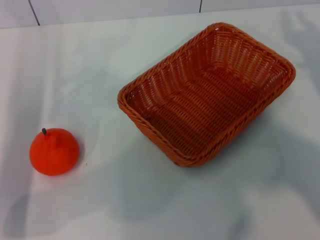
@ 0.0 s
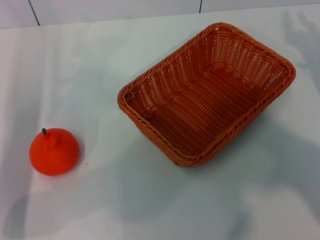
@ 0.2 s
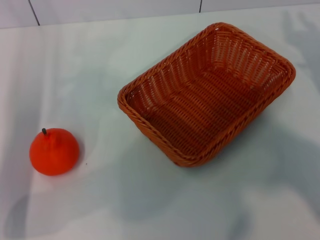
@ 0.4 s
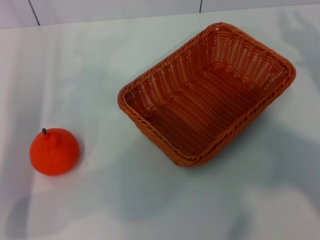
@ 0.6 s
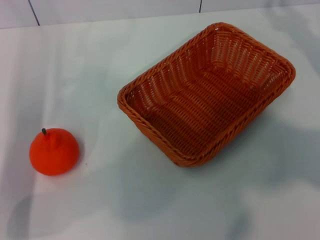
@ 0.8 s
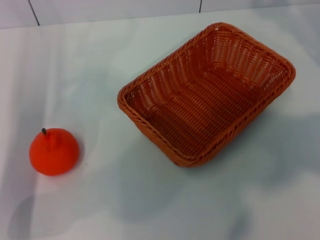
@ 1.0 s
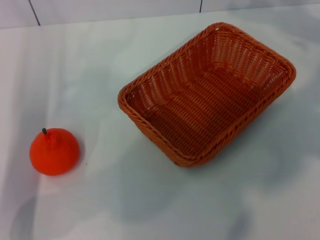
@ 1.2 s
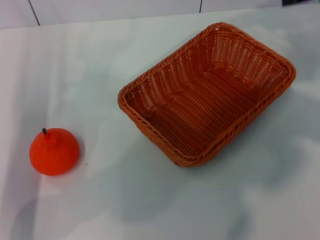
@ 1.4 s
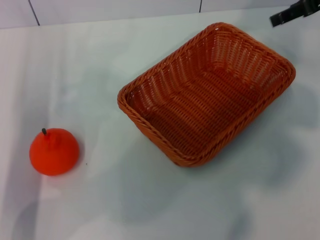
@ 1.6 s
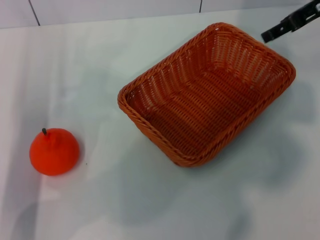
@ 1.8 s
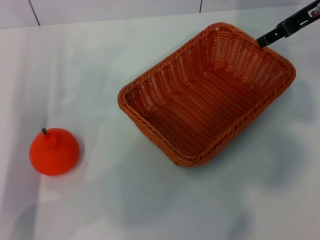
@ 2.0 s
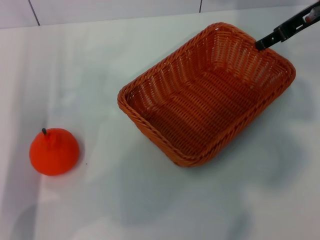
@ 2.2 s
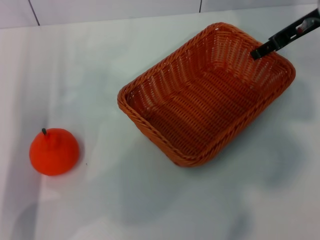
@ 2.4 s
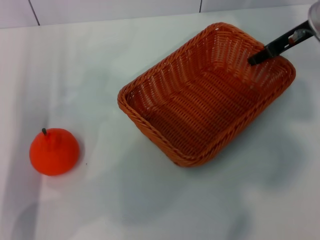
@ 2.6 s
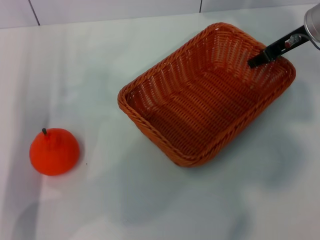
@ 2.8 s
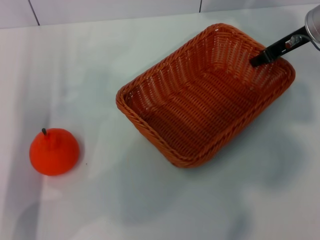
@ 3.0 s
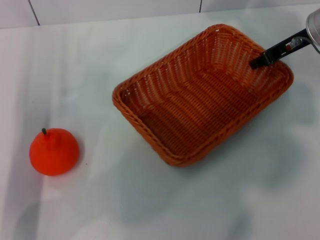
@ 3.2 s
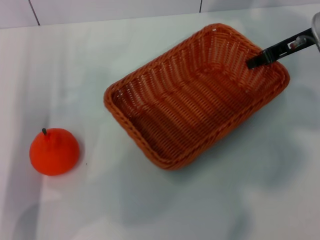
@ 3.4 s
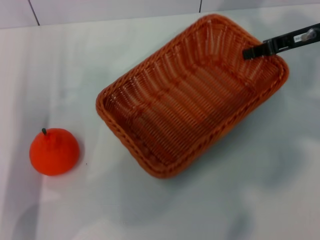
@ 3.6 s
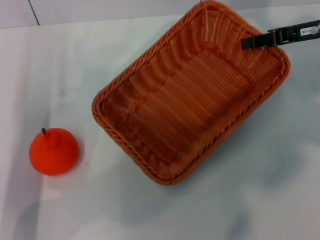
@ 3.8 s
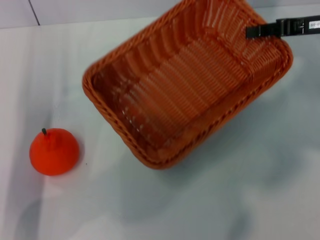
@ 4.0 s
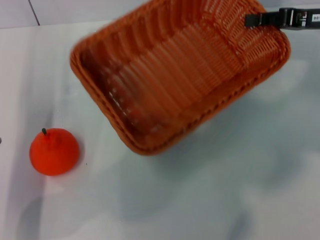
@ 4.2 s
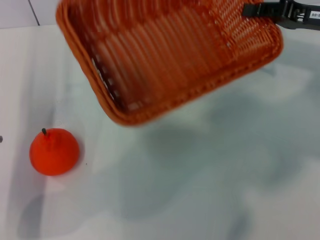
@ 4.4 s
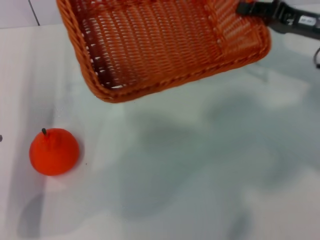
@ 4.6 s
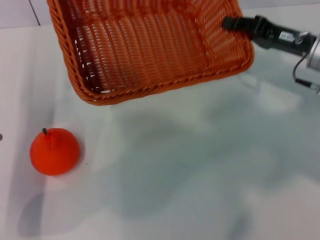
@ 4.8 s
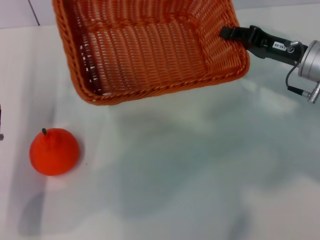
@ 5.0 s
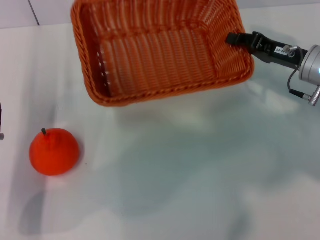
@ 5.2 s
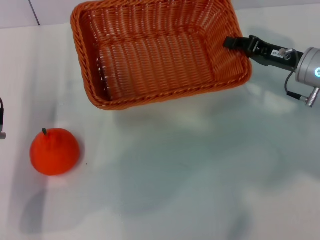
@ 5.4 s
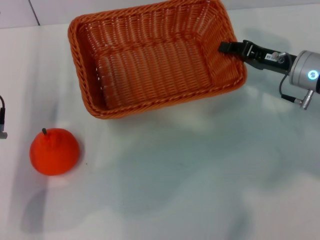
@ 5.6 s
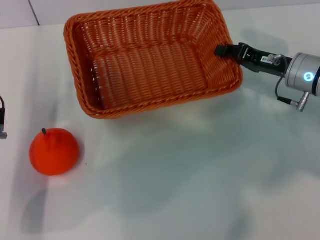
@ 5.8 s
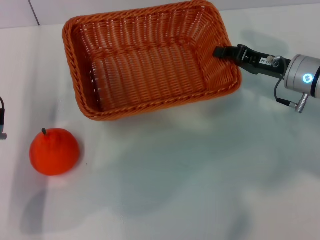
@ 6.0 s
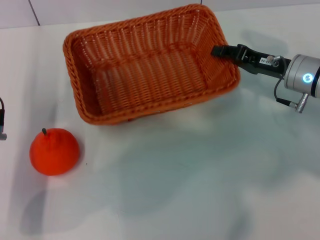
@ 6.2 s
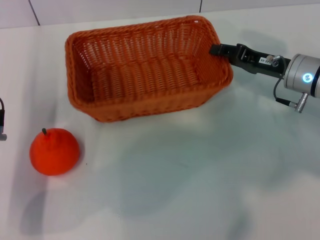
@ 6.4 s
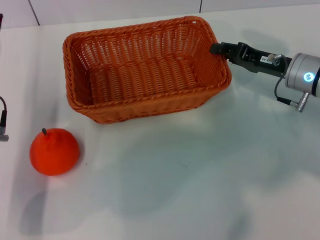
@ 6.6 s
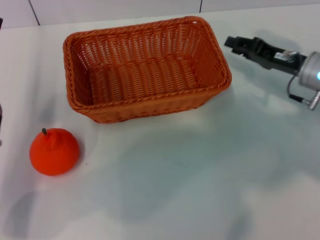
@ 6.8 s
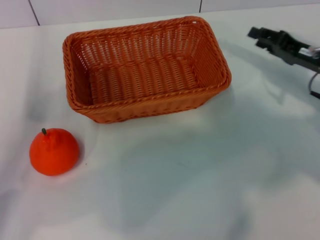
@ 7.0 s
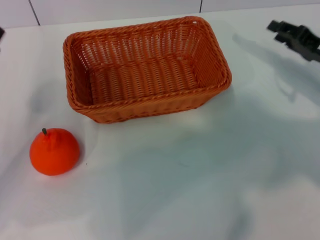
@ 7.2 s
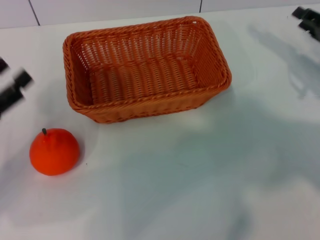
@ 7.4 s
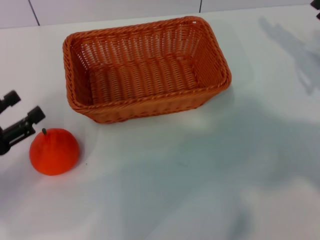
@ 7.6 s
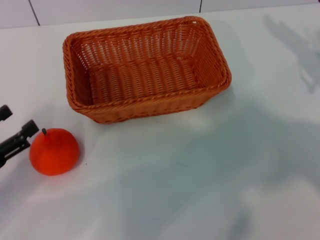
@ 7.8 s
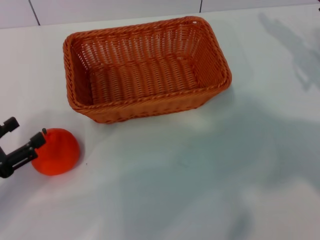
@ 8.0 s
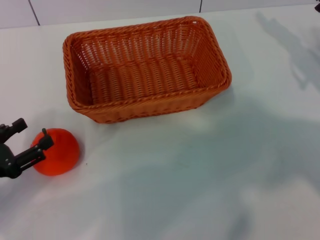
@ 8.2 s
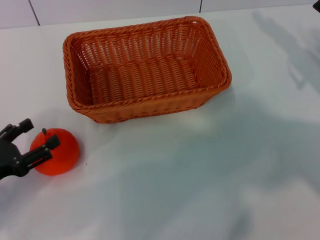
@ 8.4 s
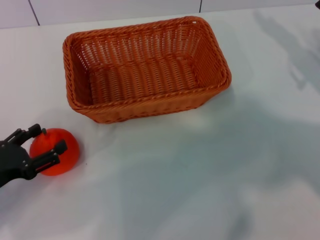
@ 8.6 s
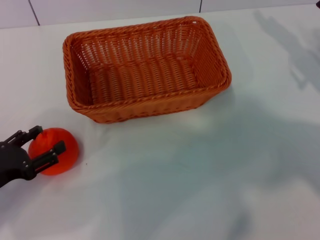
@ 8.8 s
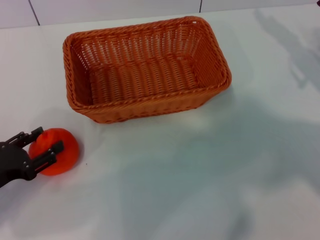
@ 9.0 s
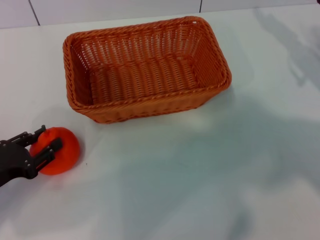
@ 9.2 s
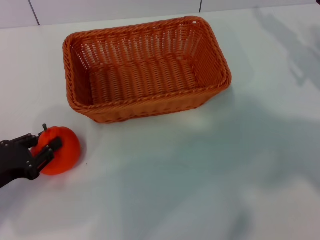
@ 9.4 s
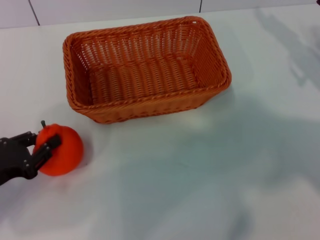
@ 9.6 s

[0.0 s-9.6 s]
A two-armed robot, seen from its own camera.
Task of the whole recording: the right gripper pick up the yellow basket and place it horizontally in the middle of the table, the left gripper pick up the orange and place it into the yellow basket.
Step, 0.0 to 3.4 s: Pick up the light basket with the right gripper.
Step, 3.6 to 6.8 s: Place the light basket in the center of view with the right gripper.
0.0 to 1.6 s: The right gripper heads upward and forward, covering approximately 20 cm, and opens its fingers.
1.6 to 3.2 s: The right gripper is displaced downward by about 10 cm, and closes.
3.2 to 4.8 s: The right gripper shifts some 5 cm backward.
6.4 to 8.0 s: The right gripper is displaced to the right by some 10 cm; the left gripper travels to the left and backward by roughly 15 cm.
8.0 to 9.6 s: The left gripper closes up.

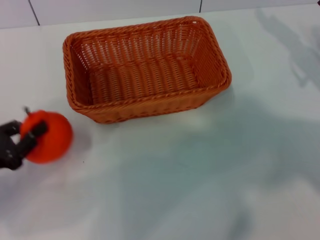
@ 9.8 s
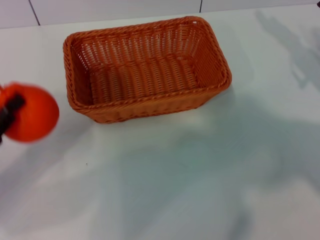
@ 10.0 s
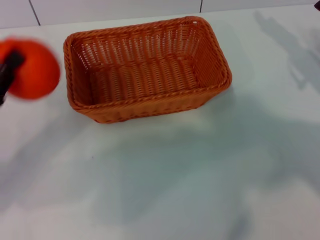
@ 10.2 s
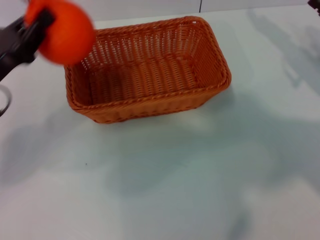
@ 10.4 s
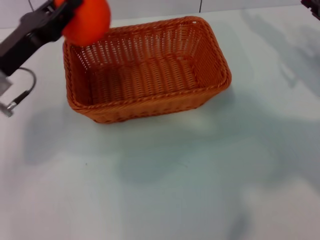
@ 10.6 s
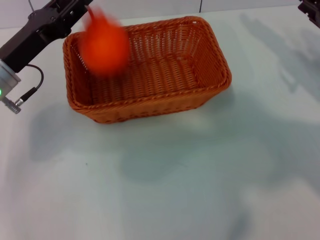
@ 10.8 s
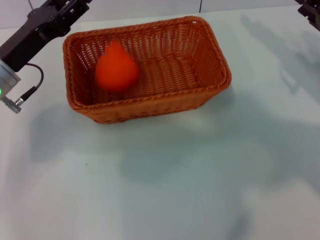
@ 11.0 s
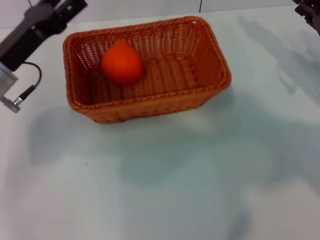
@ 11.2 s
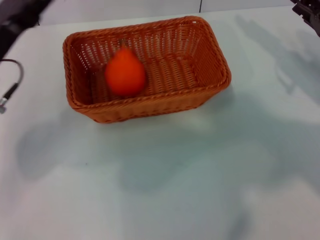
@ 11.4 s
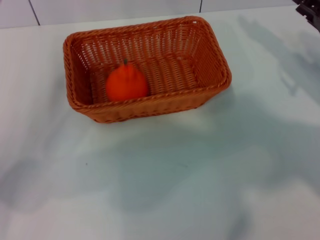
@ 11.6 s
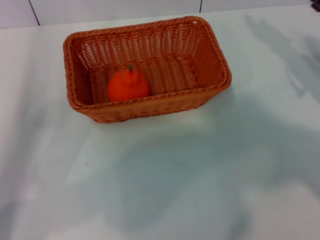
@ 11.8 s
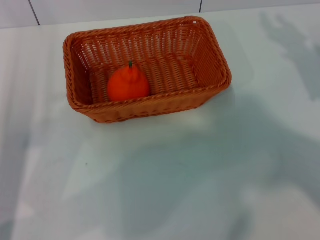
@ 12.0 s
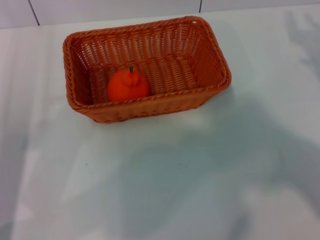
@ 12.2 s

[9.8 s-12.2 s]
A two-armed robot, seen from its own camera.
Task of the whole recording: the right gripper pick up the yellow basket and place it horizontally in the middle of the table, the left gripper pick up the orange and place it into the yellow basket.
Step, 10.0 to 11.0 s: Place the orange into the light basket with the left gripper.
9.8 to 11.0 s: The left gripper shifts roughly 15 cm forward, to the right and upward, and opens its fingers.
11.0 to 12.2 s: The left gripper heads backward and to the left, covering some 10 cm, and opens up. The right gripper shifts by approximately 5 cm.

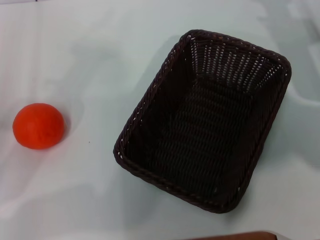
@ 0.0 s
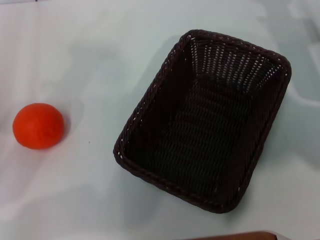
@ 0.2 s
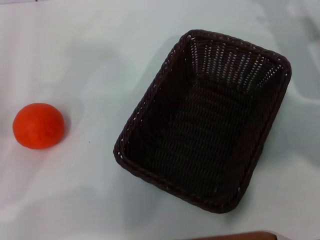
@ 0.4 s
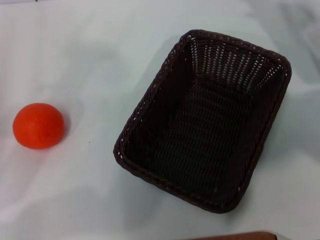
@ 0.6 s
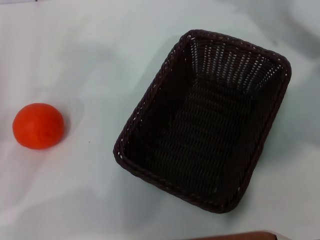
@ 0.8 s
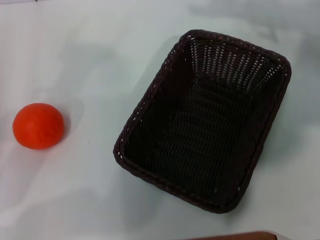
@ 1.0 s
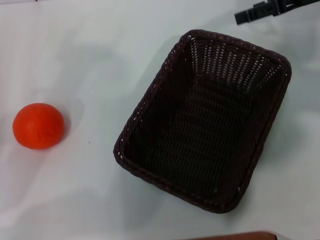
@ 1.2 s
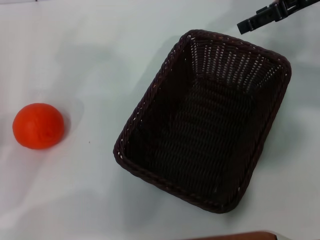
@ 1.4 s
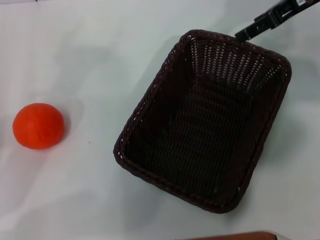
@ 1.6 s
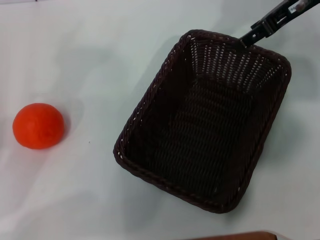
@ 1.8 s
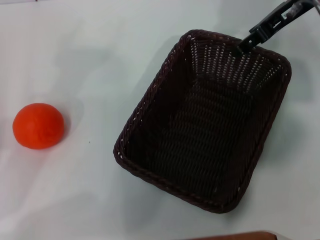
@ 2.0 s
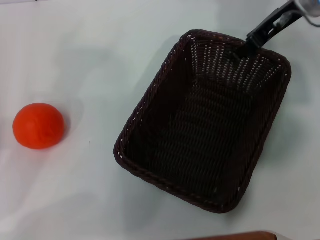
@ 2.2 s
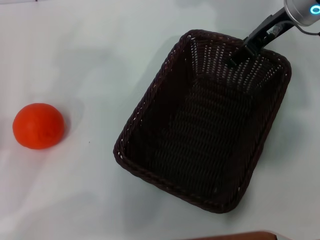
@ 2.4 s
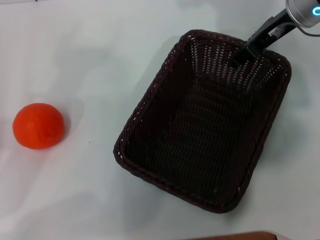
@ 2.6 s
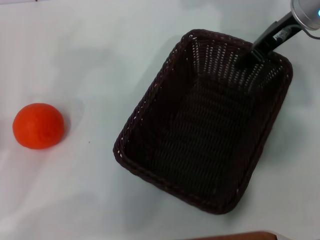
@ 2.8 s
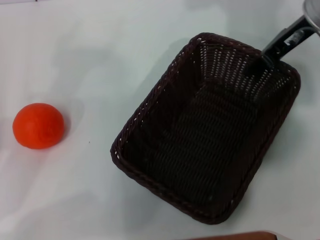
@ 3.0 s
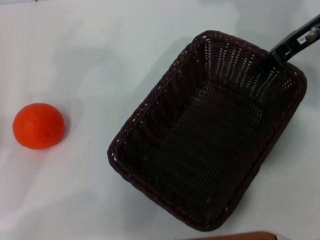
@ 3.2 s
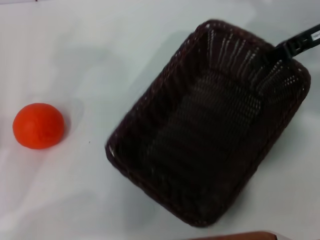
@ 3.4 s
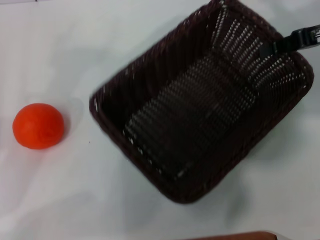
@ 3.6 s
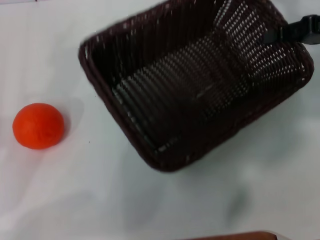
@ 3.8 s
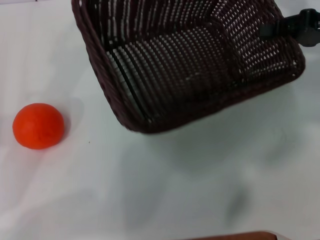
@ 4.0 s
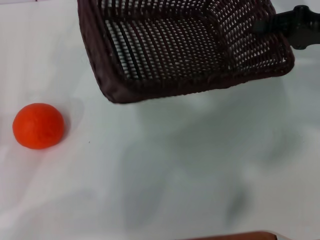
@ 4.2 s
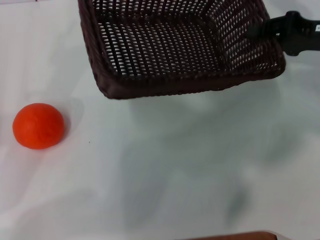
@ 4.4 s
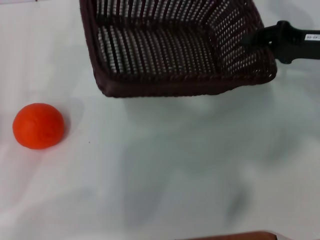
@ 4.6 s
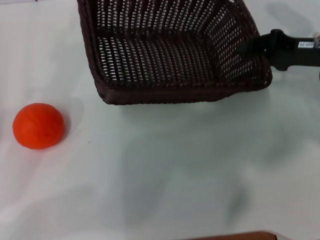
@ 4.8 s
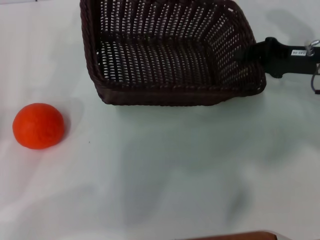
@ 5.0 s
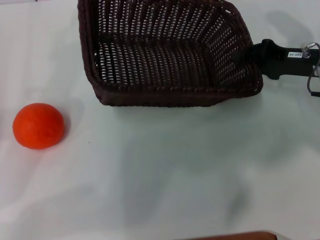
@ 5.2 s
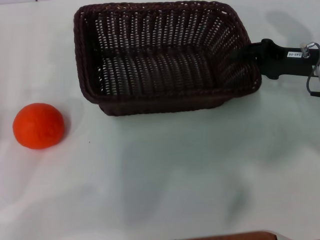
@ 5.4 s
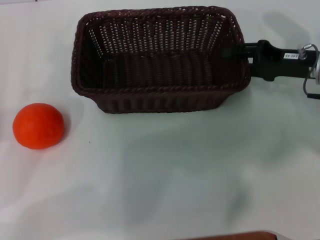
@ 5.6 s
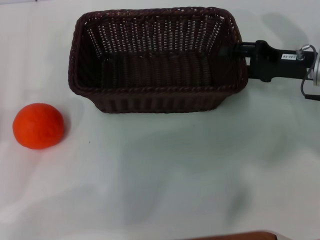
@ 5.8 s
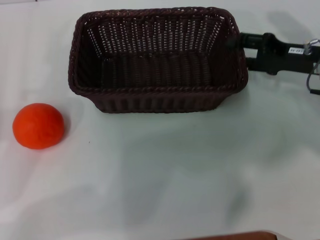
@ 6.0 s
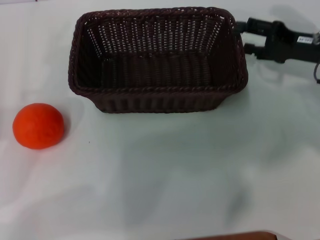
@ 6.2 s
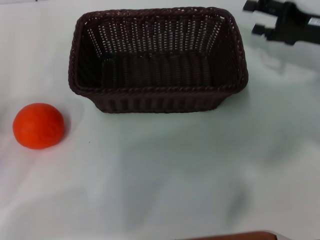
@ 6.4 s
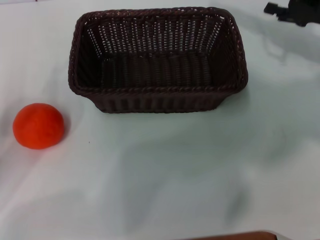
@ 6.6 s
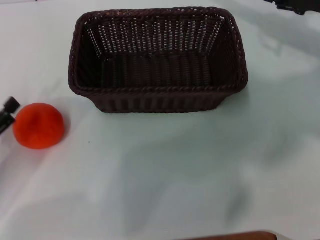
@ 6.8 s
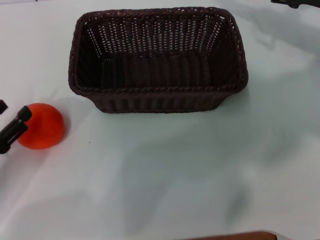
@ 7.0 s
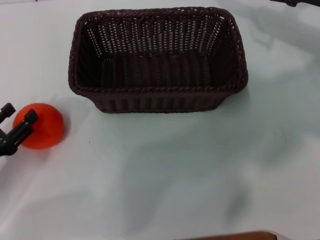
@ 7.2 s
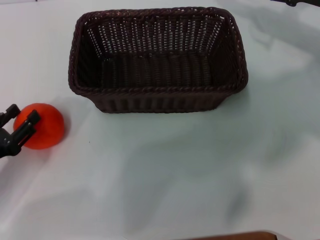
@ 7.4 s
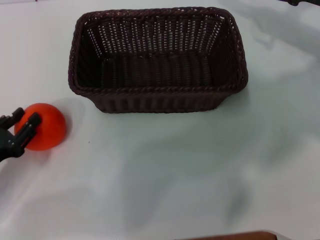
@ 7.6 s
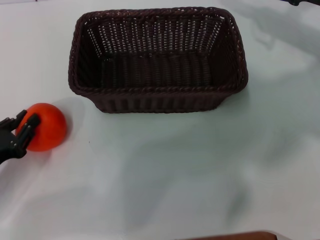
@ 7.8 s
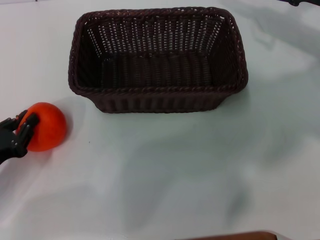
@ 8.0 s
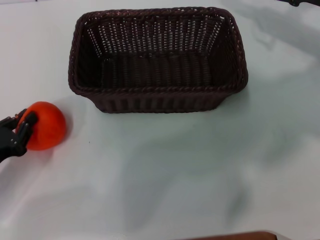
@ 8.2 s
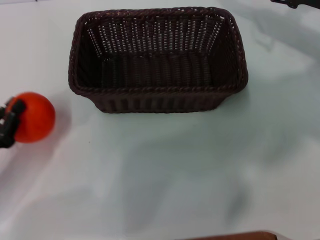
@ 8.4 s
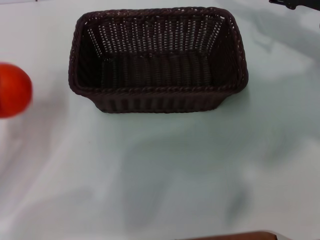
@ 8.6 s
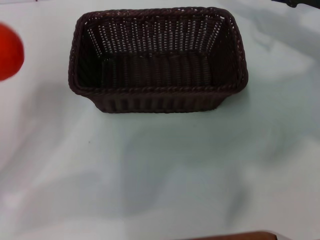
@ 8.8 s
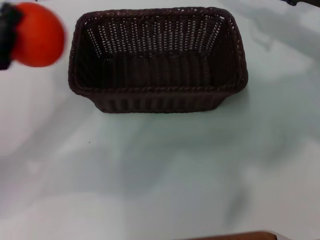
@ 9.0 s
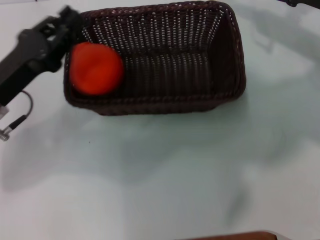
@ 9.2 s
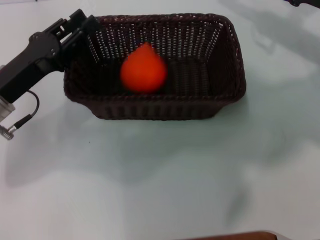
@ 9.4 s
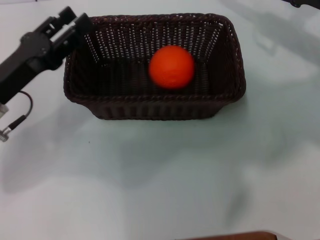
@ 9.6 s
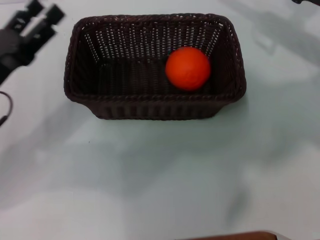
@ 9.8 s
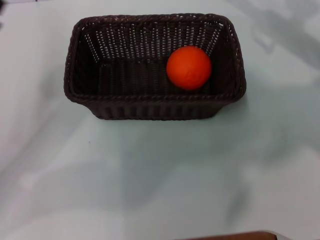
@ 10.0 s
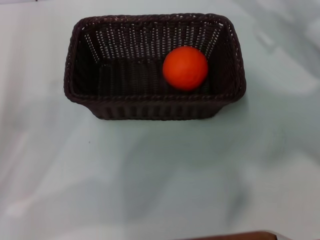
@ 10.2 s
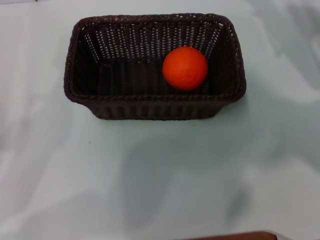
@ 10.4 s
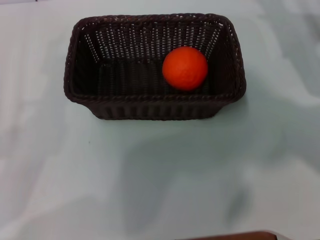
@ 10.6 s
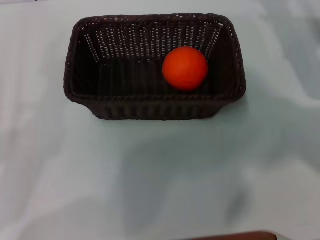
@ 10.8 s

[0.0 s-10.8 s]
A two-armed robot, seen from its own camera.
Task of the whole recording: the right gripper pick up the black basket and place it horizontally in the middle of the table, the left gripper pick up the orange and place it into the black basket.
Step, 0.0 to 2.8 s: Pick up the dark basket with the right gripper.
Step, 3.0 to 5.8 s: Place the dark basket in the center of view with the right gripper.
Step, 6.0 to 8.2 s: Pick up the orange with the left gripper.
Step, 8.4 to 9.4 s: Place the orange into the dark basket with the left gripper.
0.0 to 1.6 s: The right gripper heads upward, covering some 15 cm.
1.6 to 3.0 s: The right gripper closes up.
3.0 to 4.6 s: The right gripper is displaced downward, to the right and backward by roughly 10 cm.
4.6 to 6.2 s: The right gripper opens its fingers.
6.2 to 7.8 s: The left gripper shifts approximately 5 cm downward, and closes up; the right gripper moves some 5 cm.
7.8 to 9.2 s: The left gripper shifts about 15 cm forward, upward and to the right.
9.2 to 10.8 s: The left gripper goes roughly 15 cm backward and to the left, and opens its fingers.
